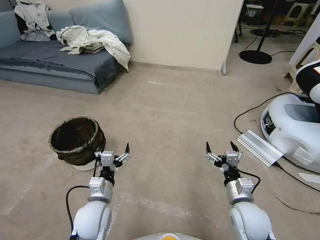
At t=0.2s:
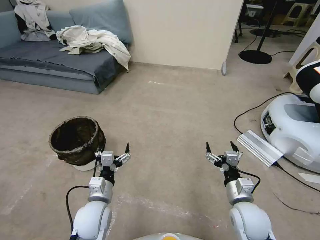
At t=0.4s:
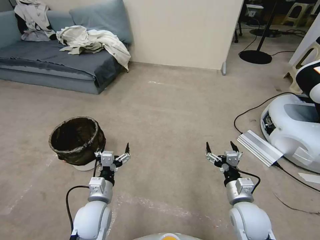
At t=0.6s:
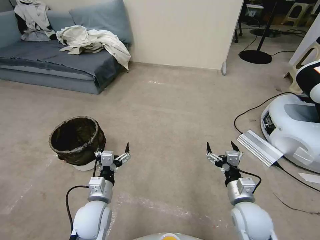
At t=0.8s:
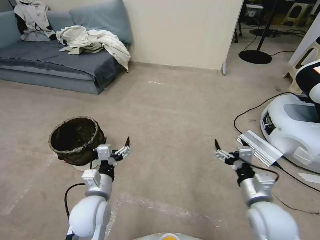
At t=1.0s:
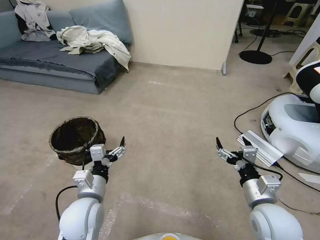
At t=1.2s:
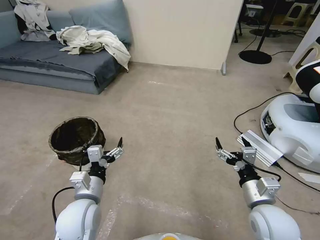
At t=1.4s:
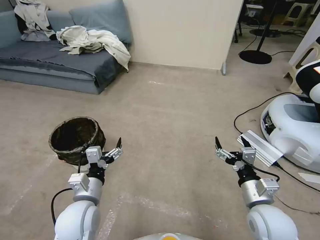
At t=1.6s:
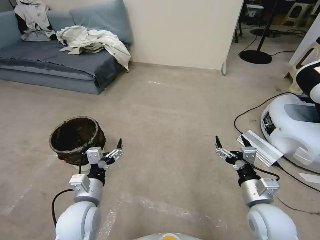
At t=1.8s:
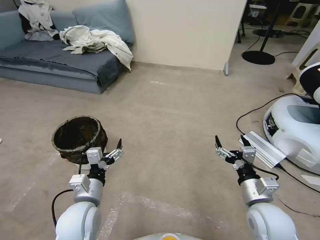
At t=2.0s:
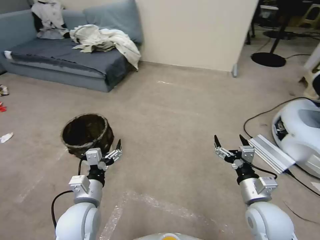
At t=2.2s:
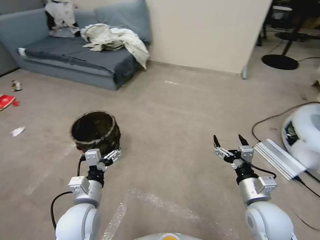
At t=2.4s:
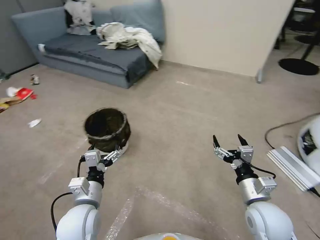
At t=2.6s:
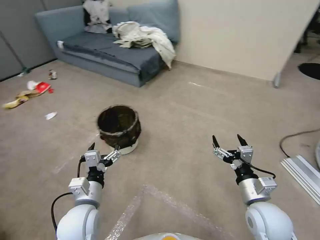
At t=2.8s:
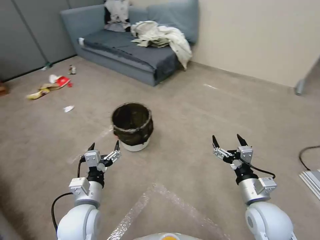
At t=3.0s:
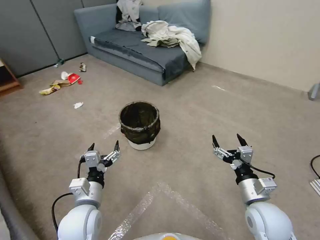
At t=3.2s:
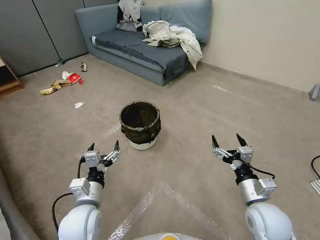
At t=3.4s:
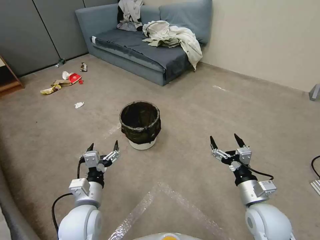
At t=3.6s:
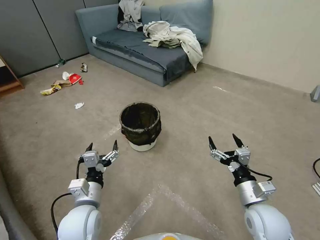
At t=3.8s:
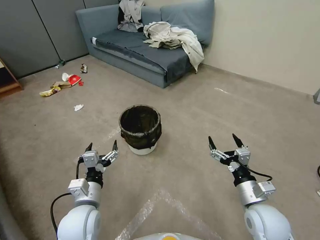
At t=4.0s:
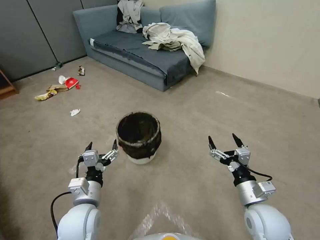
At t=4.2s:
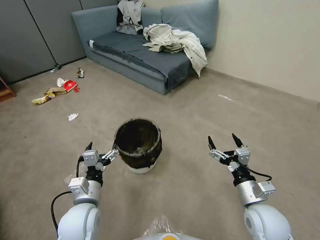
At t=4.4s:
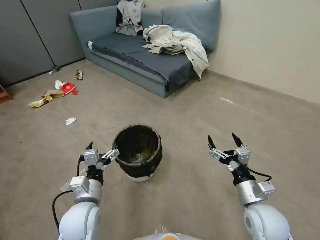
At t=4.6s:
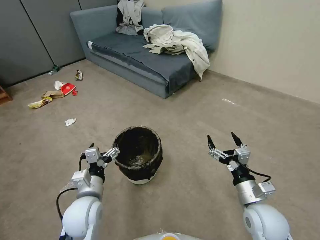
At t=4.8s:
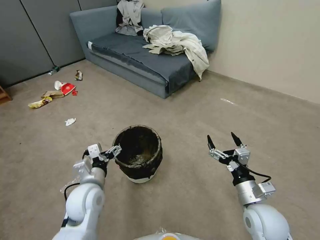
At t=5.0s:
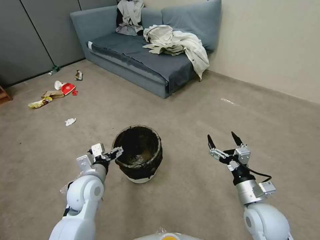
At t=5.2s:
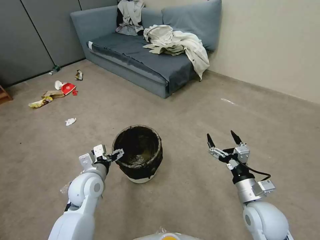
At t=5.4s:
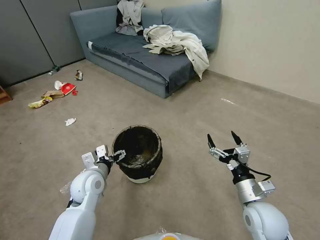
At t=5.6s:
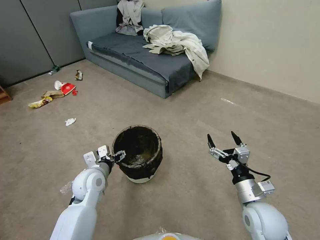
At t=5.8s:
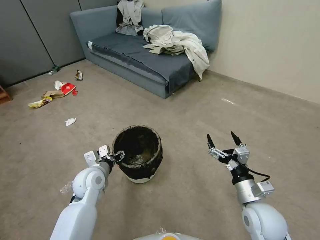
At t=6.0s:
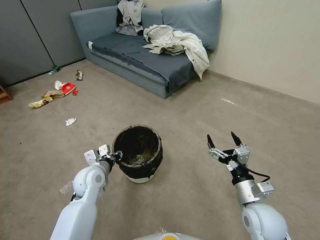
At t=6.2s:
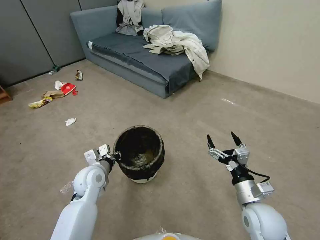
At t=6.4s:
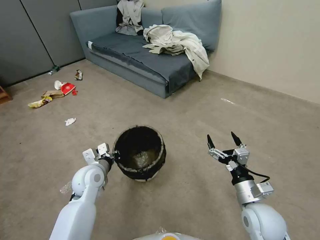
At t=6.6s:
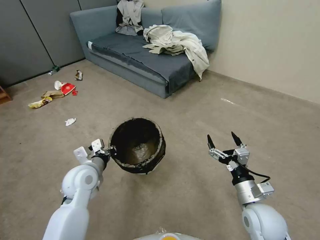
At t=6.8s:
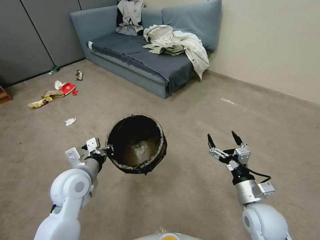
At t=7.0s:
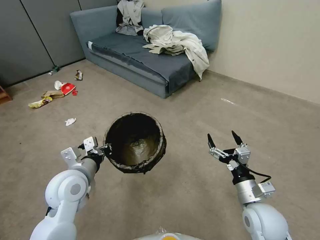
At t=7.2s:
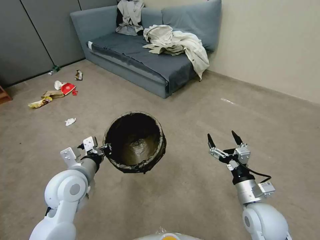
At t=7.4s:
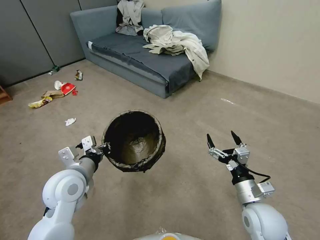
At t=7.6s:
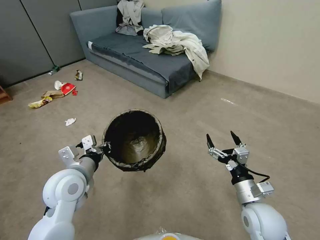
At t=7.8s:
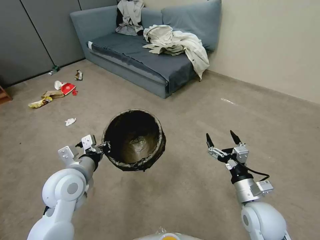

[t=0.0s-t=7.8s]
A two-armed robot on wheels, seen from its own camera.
Task of the whole recording: Pick up the trash can from the floor.
t=4.6s to t=6.2s: The left gripper heads forward, covering approximately 10 cm, and closes its fingers.
t=6.2s to t=7.8s: The left gripper shifts about 10 cm upward and backward.

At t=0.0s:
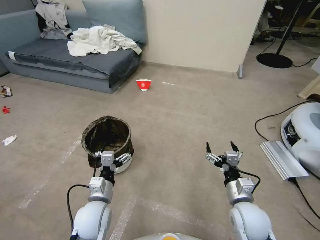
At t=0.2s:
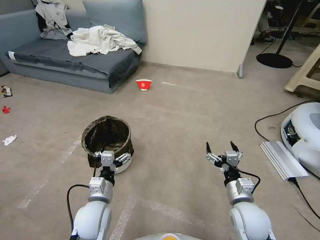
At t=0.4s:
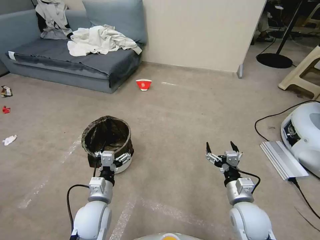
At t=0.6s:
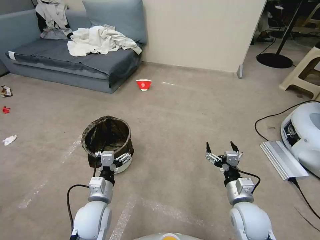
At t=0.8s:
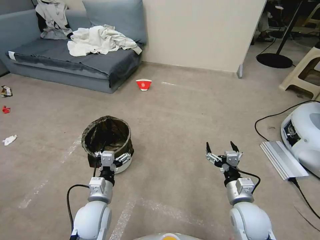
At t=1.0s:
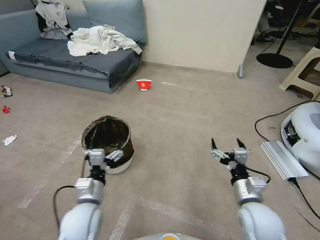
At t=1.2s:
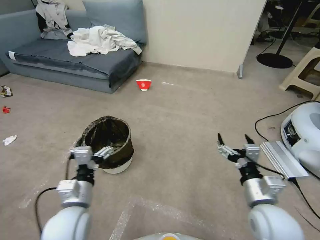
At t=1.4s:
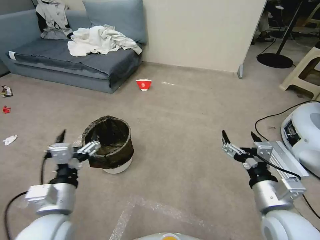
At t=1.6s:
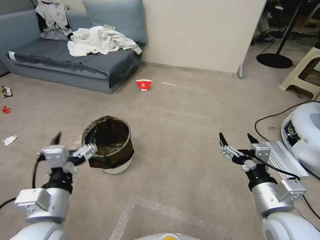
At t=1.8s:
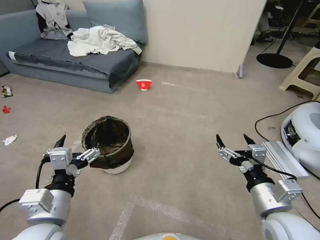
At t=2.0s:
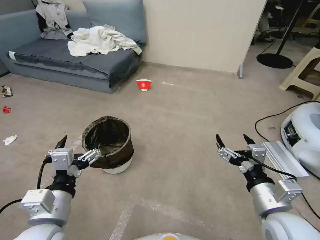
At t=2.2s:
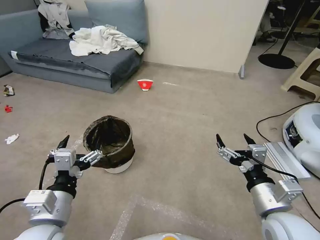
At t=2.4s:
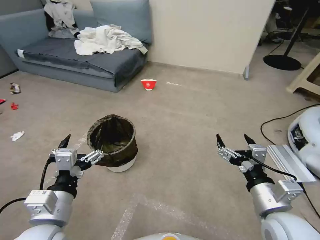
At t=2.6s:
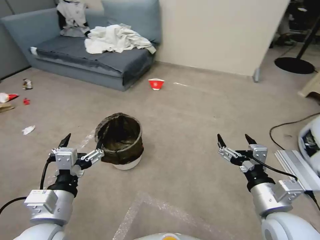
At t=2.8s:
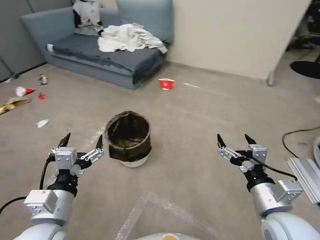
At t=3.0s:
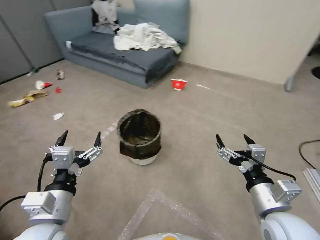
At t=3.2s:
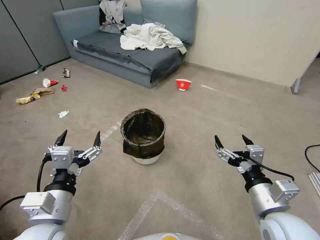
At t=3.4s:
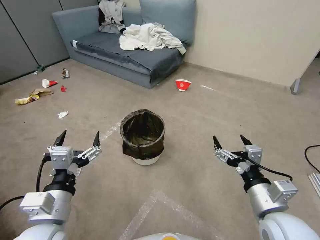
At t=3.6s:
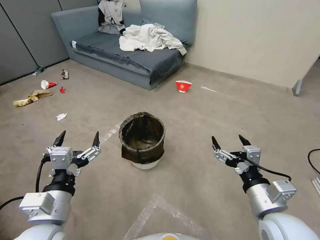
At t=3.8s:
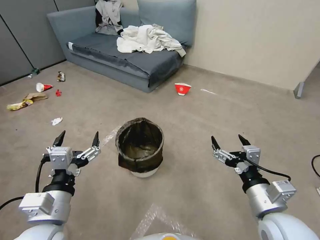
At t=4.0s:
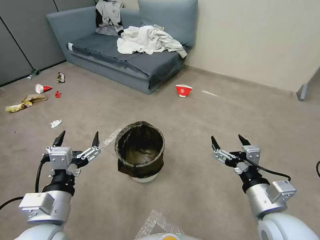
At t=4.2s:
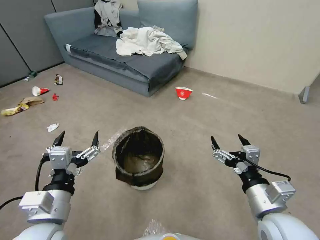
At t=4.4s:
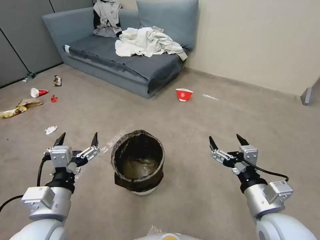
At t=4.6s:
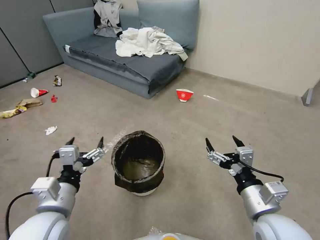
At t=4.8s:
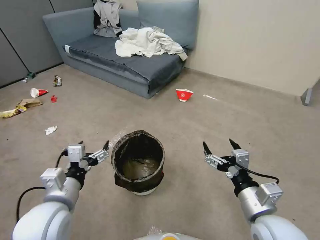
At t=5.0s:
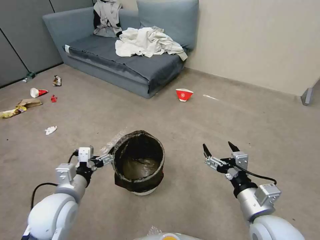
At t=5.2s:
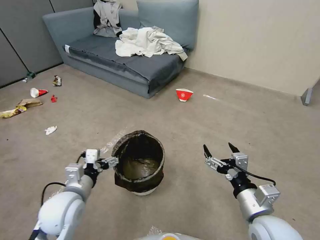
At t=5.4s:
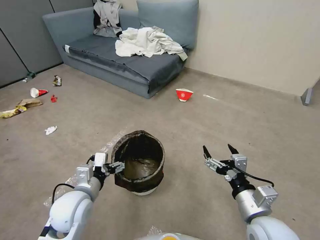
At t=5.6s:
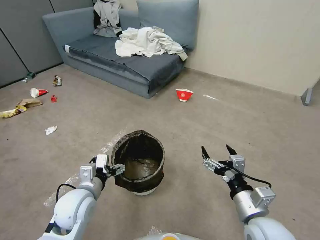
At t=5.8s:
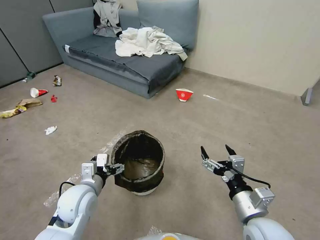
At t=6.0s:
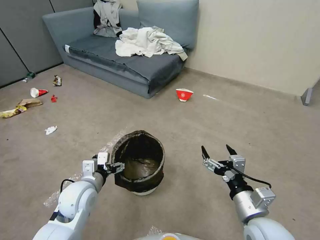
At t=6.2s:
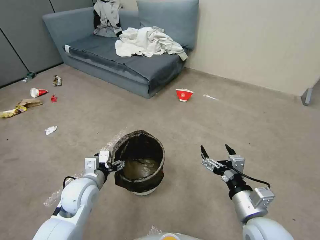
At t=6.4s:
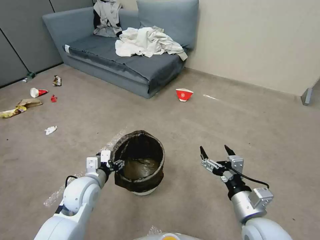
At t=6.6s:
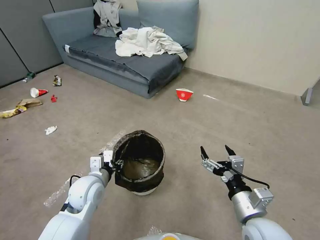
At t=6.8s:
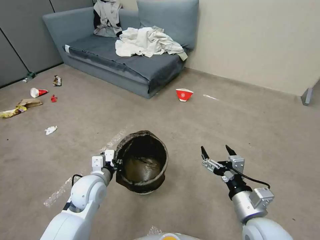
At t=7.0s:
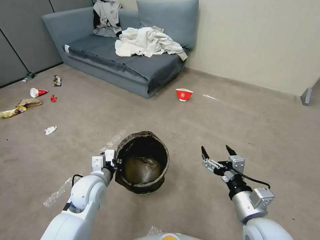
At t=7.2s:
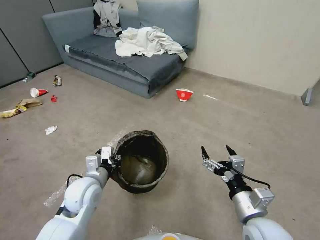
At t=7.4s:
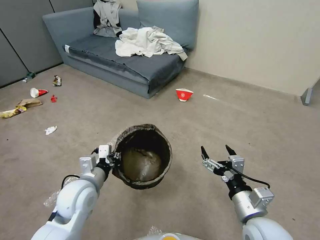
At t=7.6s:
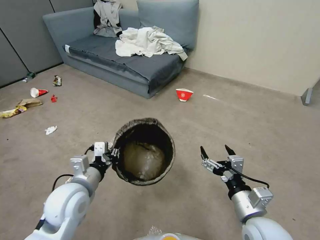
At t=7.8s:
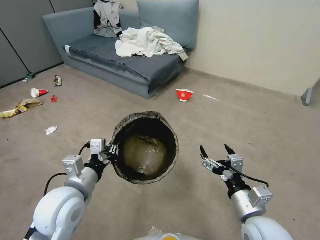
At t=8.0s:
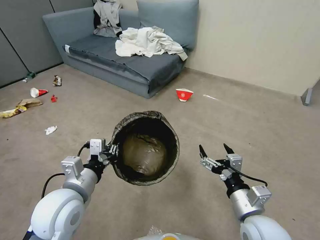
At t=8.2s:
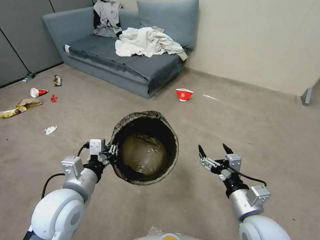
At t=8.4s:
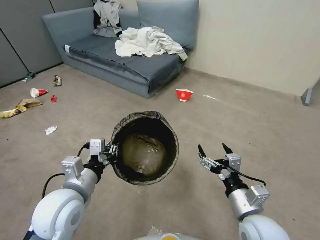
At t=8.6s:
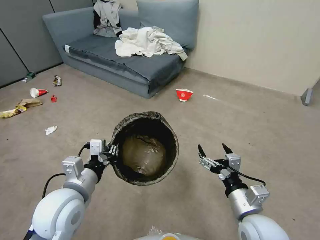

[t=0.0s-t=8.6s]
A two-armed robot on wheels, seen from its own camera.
Task of the whole recording: Pick up the trash can from the floor.
t=4.4s to t=5.8s: The left gripper moves forward and downward, roughly 15 cm.
t=5.8s to t=7.2s: The left gripper closes.
t=7.2s to t=8.6s: The left gripper is displaced upward and backward by some 10 cm.
